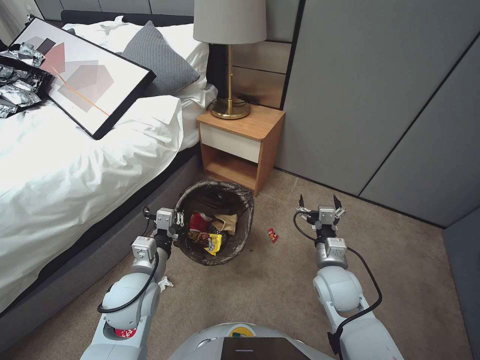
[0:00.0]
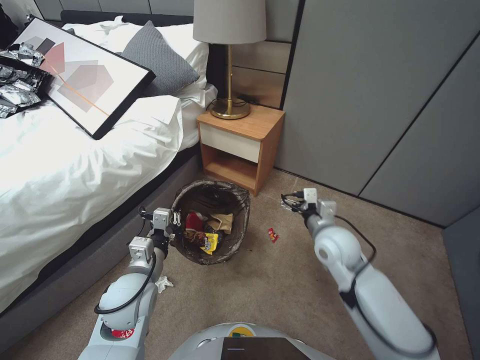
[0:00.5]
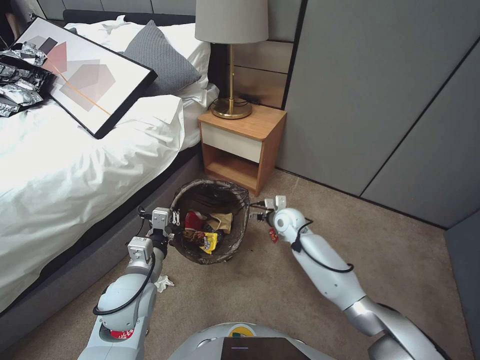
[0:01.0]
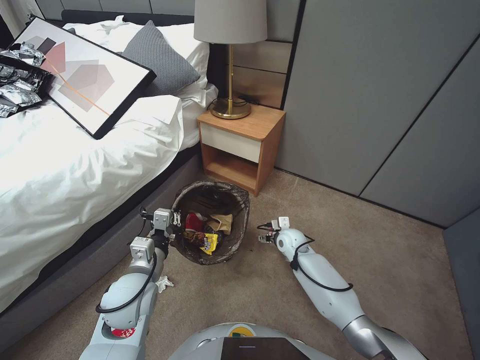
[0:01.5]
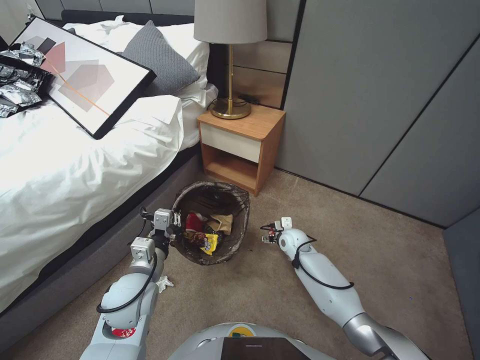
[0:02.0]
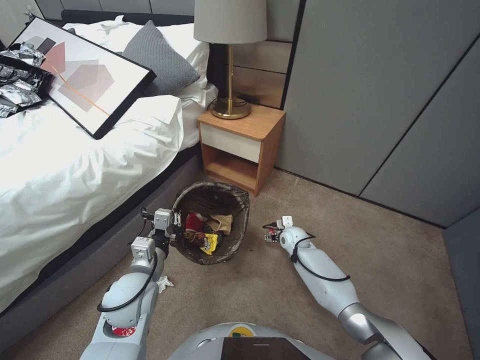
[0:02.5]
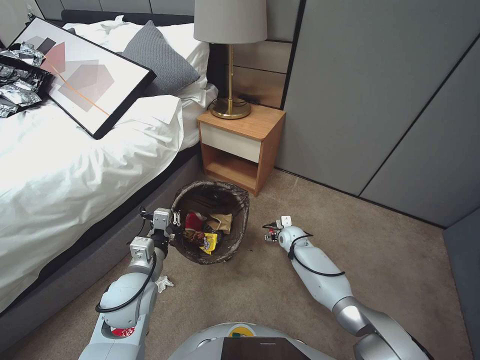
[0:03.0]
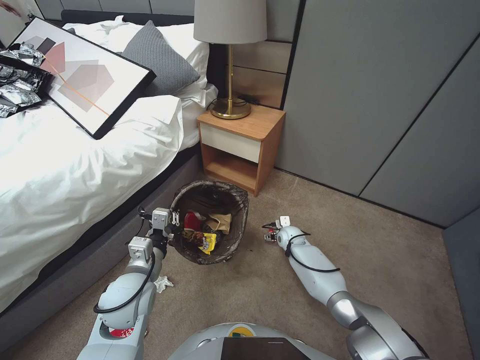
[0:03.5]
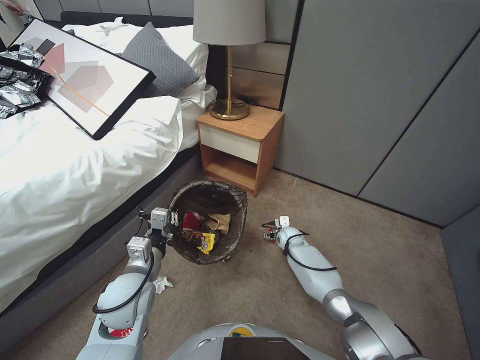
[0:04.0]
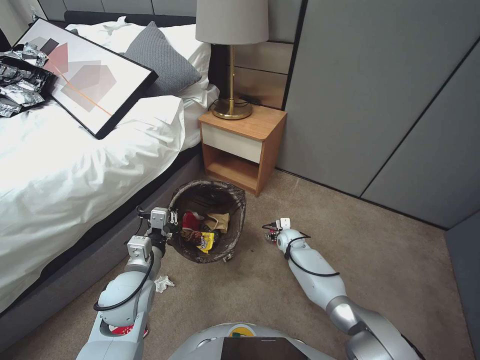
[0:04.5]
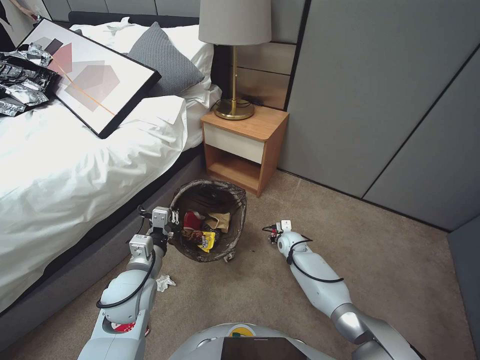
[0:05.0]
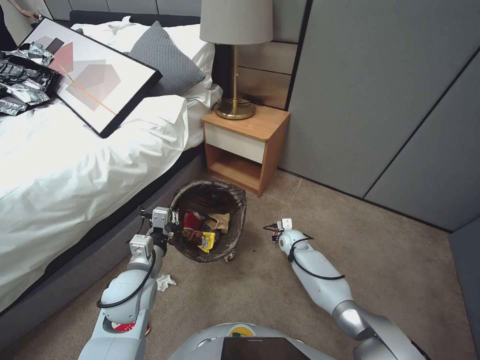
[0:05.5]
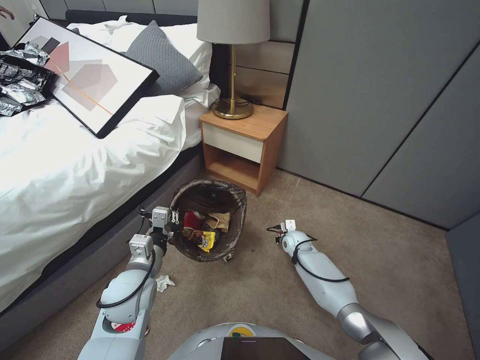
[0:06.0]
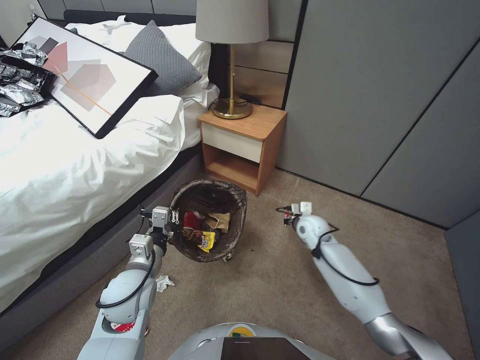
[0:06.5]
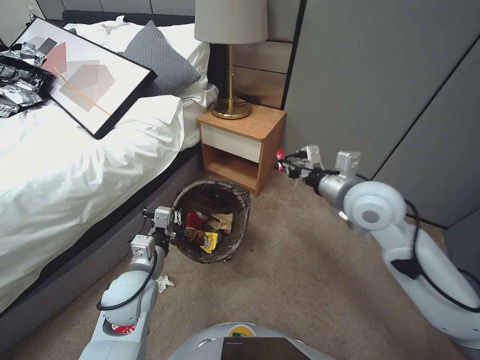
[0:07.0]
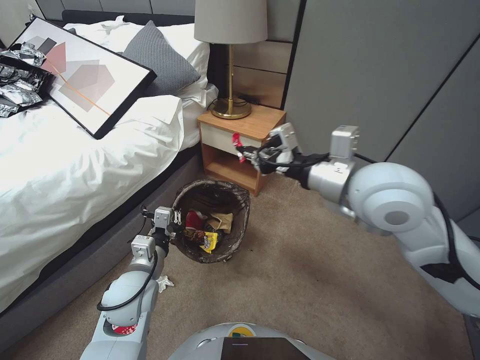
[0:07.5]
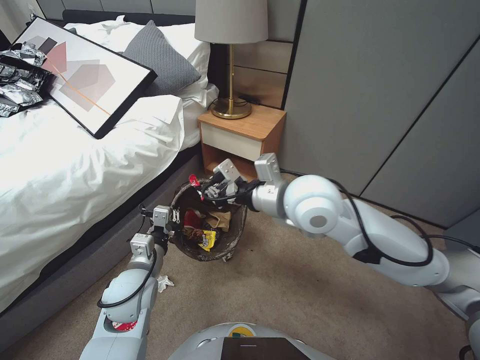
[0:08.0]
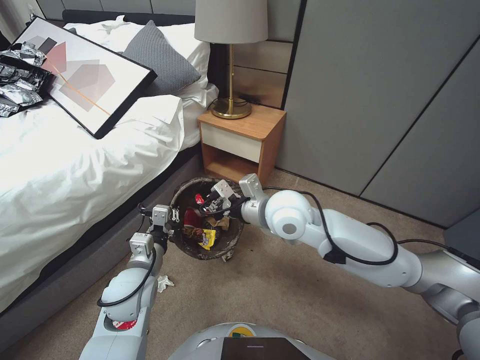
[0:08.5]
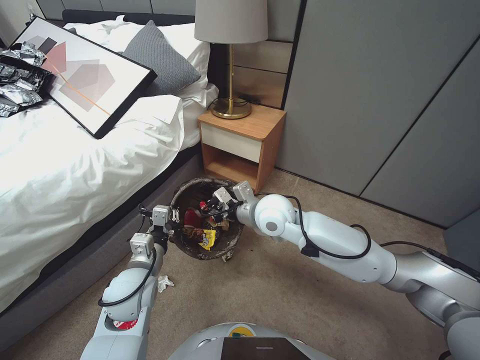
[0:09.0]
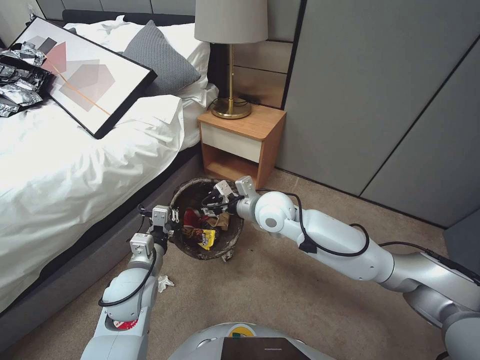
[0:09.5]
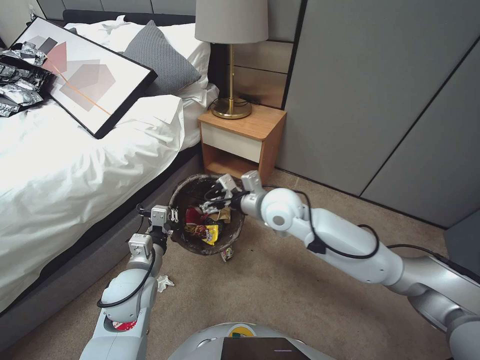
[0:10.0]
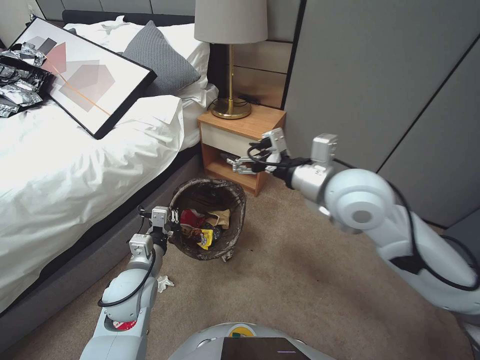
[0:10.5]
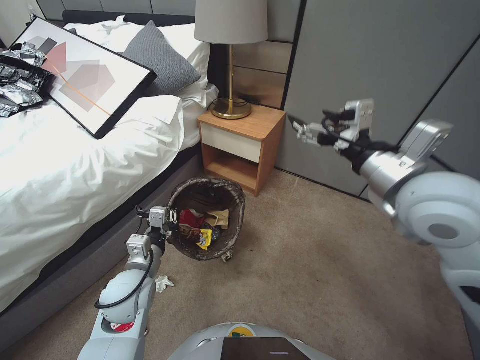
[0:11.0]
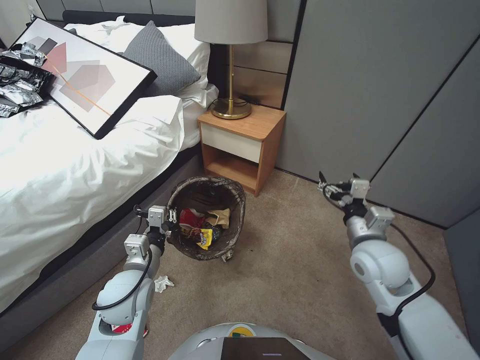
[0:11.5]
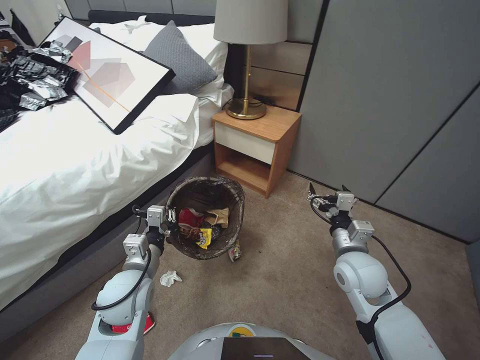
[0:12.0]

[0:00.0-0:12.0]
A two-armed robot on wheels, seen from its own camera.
Task of the whole recording: Pick up the trash bin, then pick up the garbage from the floor and place it into the trash bin.
0:00.0 to 0:02.0: The right gripper goes approximately 20 cm forward and downward.
0:02.0 to 0:04.0: The right gripper goes about 5 cm downward.
0:04.0 to 0:06.0: The right gripper closes.
0:06.0 to 0:08.0: The right gripper goes approximately 50 cm upward.
0:08.0 to 0:10.0: The right gripper is displaced downward, to the left and forward by some 20 cm, and opens.
0:10.0 to 0:12.0: The right gripper heads to the right, backward and downward, covering roughly 25 cm.

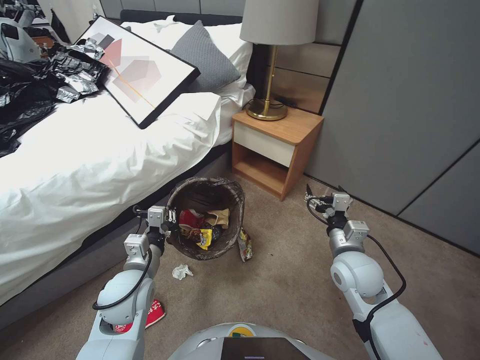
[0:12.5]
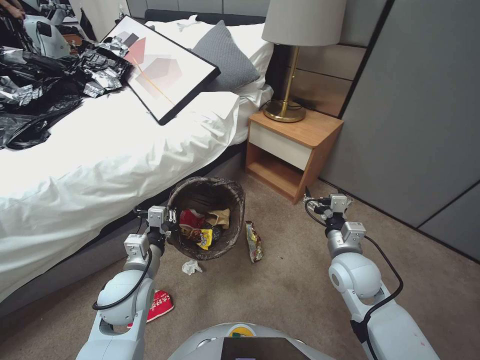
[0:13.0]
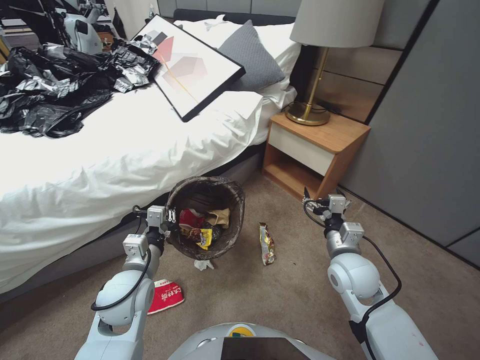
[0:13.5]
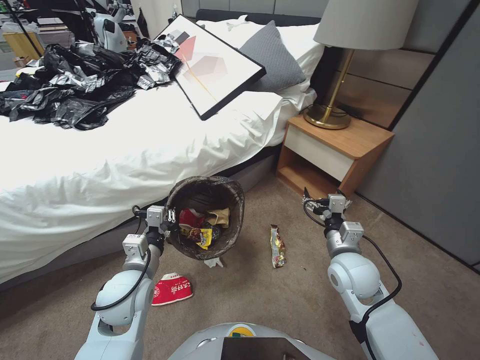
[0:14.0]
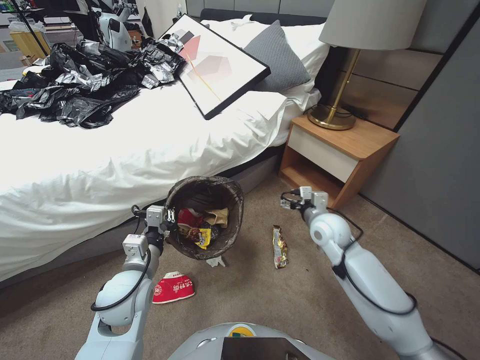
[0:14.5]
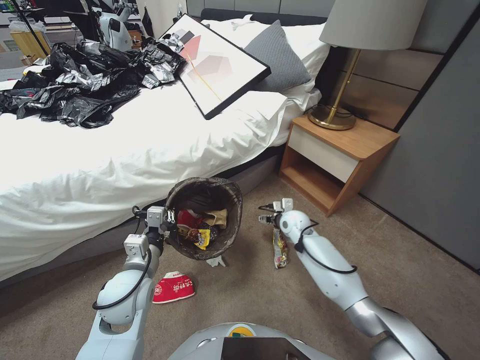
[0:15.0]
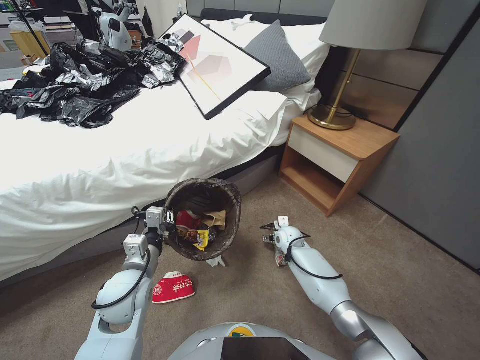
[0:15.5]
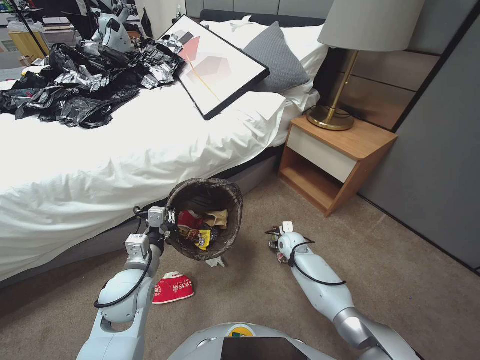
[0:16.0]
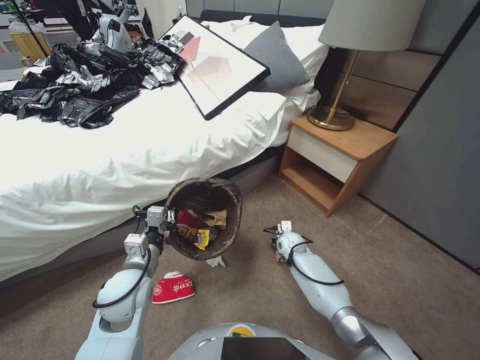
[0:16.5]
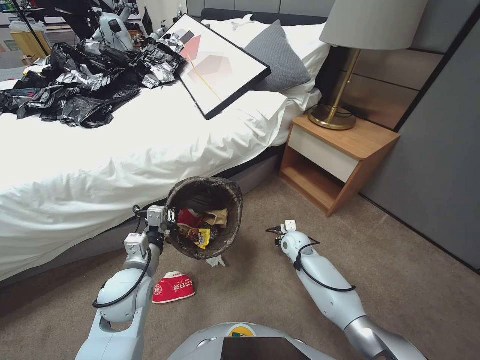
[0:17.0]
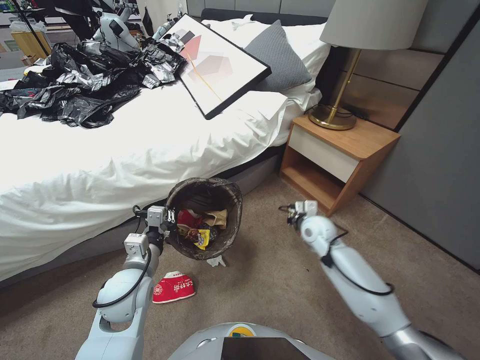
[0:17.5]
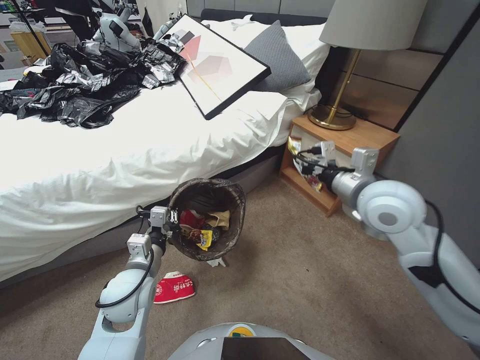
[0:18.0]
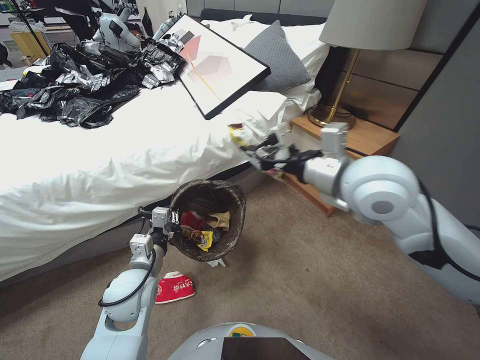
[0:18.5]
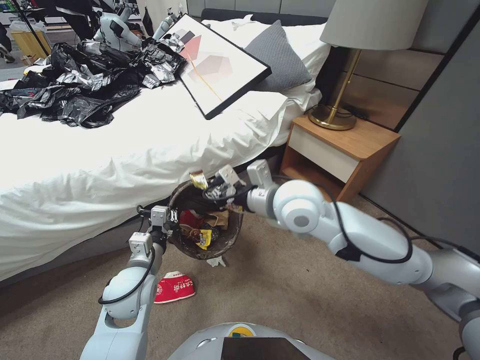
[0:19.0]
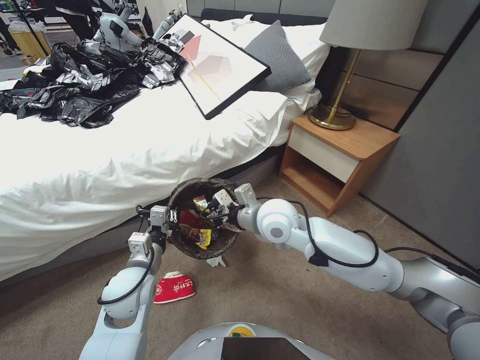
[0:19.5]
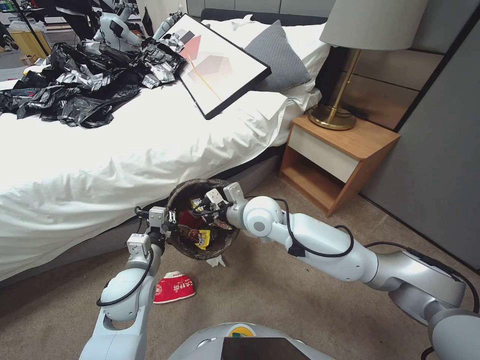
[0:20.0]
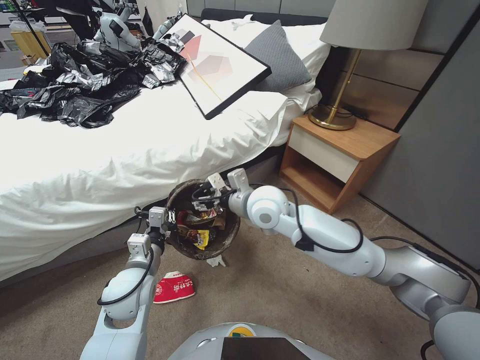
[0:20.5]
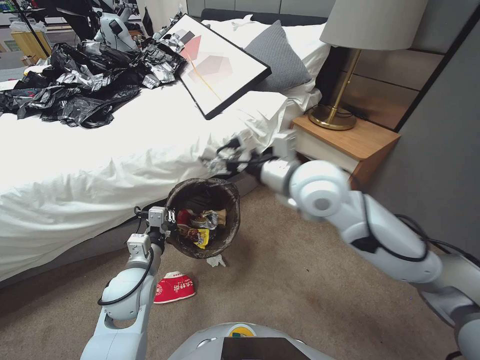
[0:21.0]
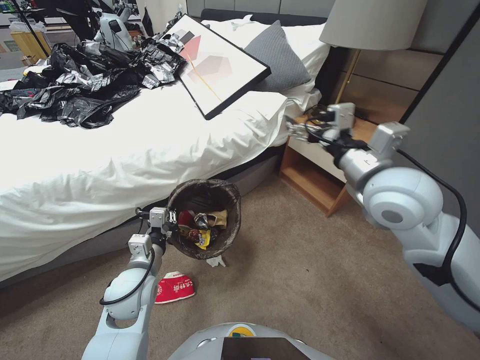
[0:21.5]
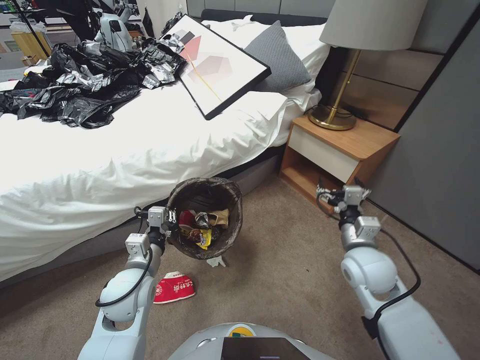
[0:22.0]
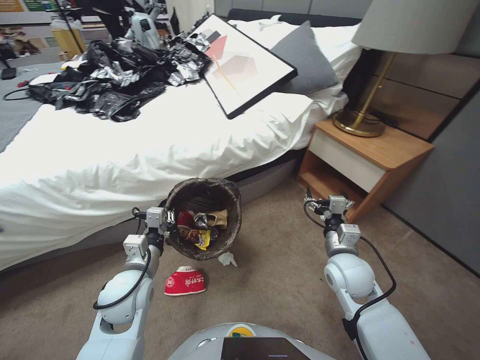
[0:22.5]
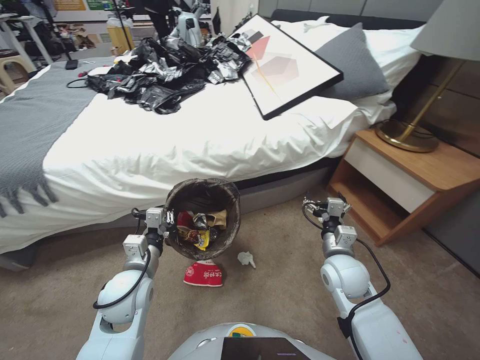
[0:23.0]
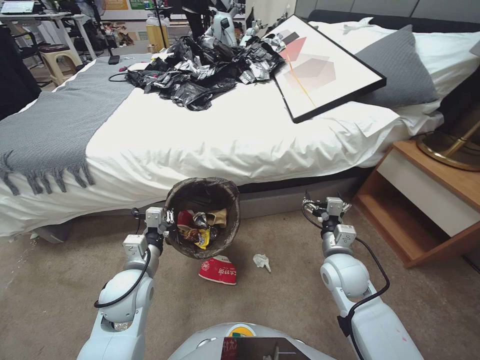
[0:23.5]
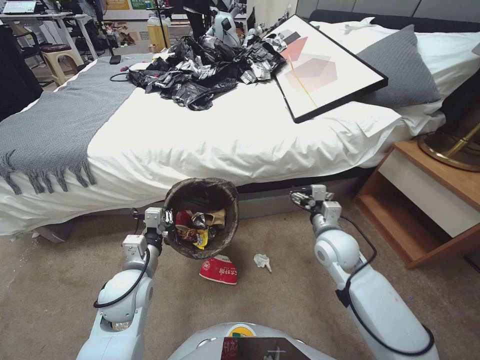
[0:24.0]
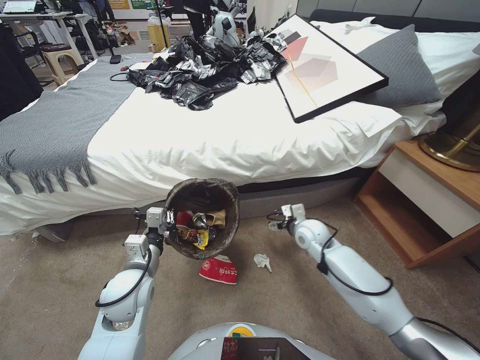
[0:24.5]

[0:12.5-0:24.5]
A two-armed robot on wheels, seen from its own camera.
Task of the whole recording: Pick up the trash bin, then pick up the garbage from the floor and place it into the trash bin.
0:12.5 to 0:14.5: The right gripper heads forward, covering roughly 5 cm.
0:14.5 to 0:16.5: The right gripper travels downward by approximately 25 cm, and closes its fingers.
0:16.5 to 0:18.5: The right gripper goes roughly 50 cm upward, and closes up.
0:18.5 to 0:20.5: The right gripper moves to the left, downward and forward, some 25 cm, and opens up.
0:20.5 to 0:22.5: The right gripper travels to the right, downward and backward by roughly 25 cm, and opens.
0:22.5 to 0:24.5: The right gripper travels forward by roughly 10 cm.

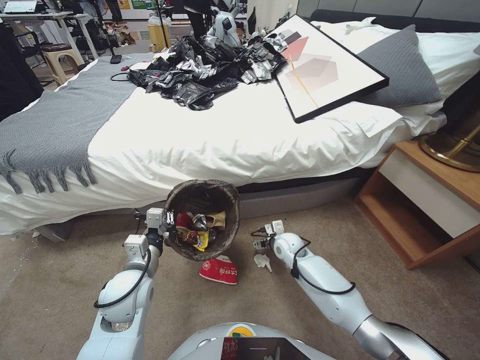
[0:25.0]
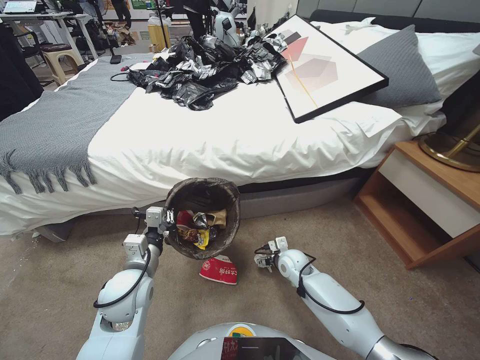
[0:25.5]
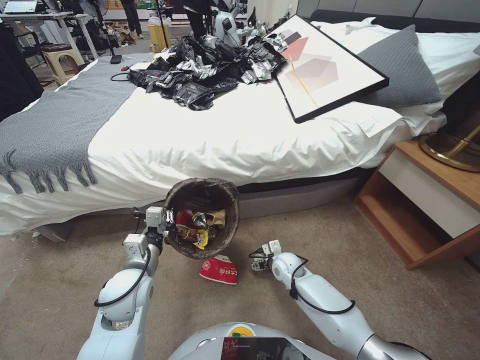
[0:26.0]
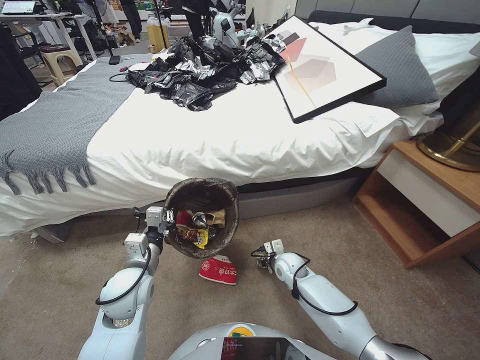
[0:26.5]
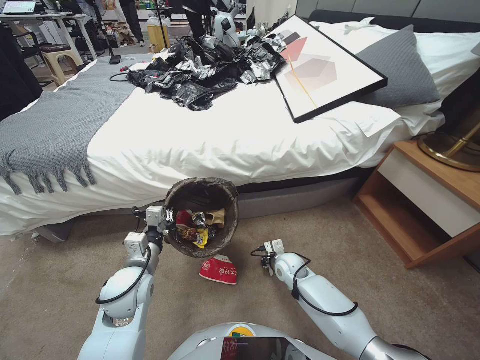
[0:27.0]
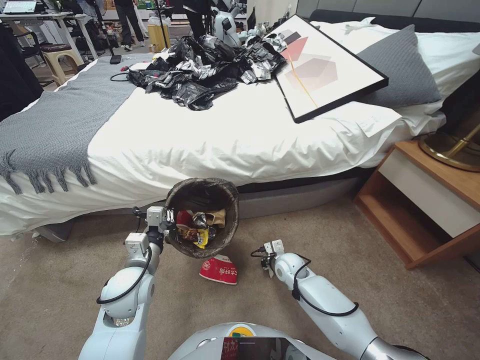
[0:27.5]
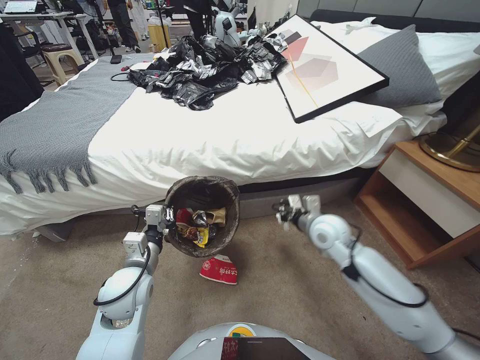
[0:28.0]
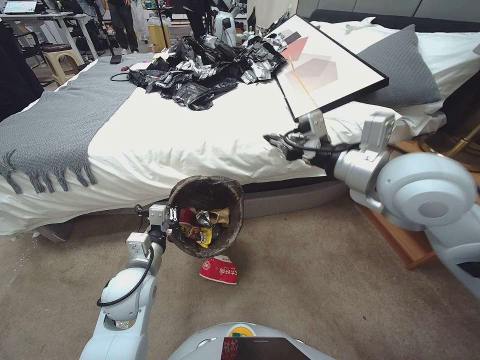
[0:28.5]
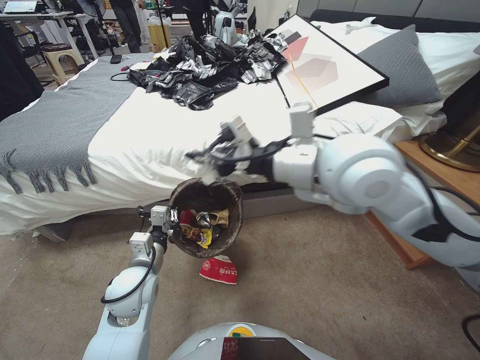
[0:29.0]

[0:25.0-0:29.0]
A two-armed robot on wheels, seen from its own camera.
Task of the whole recording: Pick up the trash bin, then pick up the garbage from the floor and place it into the trash bin.
0:25.0 to 0:27.0: The right gripper heads downward and backward, covering roughly 10 cm, and closes its fingers.
0:27.0 to 0:29.0: The right gripper moves upward, about 50 cm.
